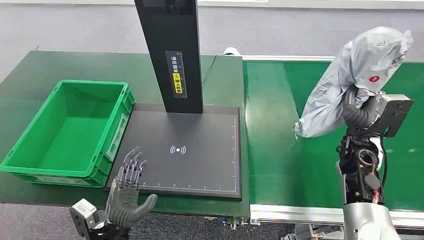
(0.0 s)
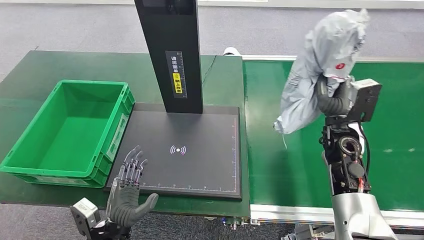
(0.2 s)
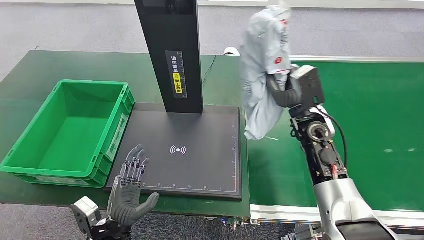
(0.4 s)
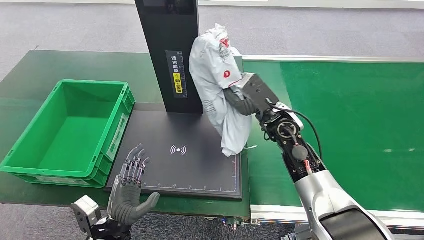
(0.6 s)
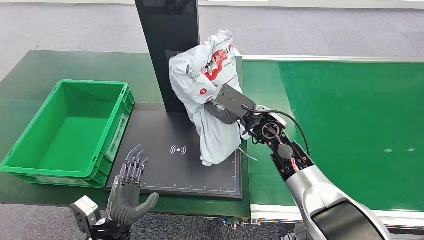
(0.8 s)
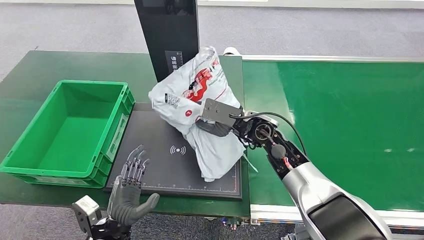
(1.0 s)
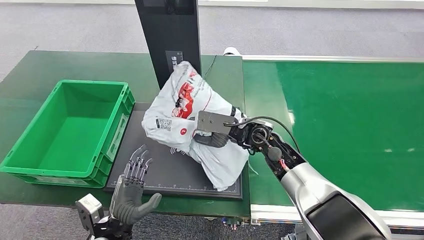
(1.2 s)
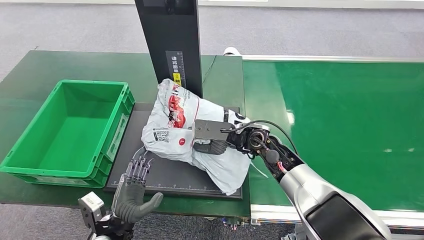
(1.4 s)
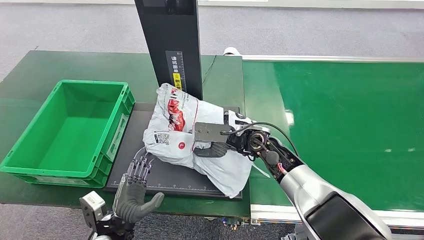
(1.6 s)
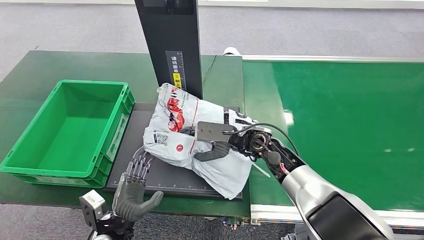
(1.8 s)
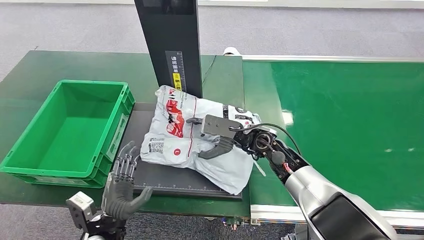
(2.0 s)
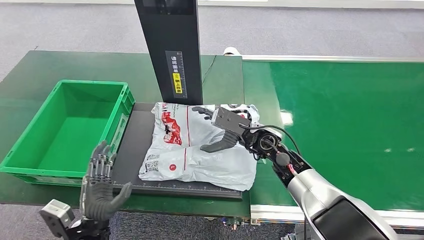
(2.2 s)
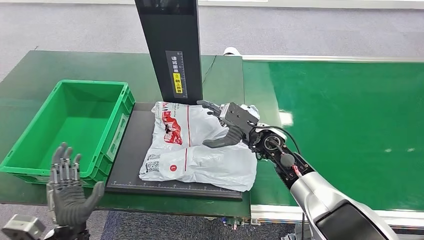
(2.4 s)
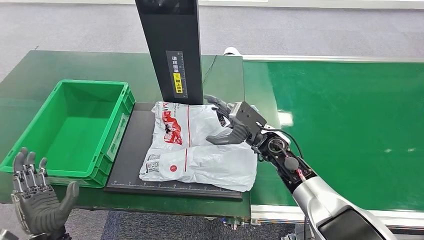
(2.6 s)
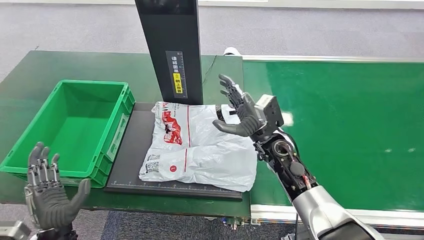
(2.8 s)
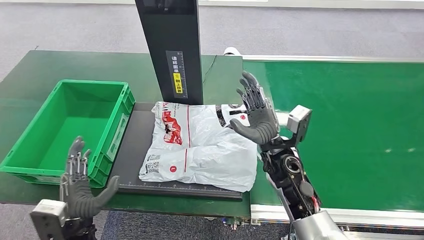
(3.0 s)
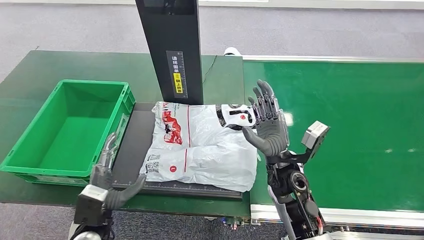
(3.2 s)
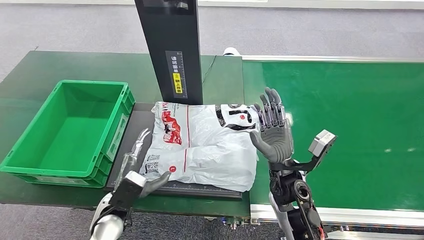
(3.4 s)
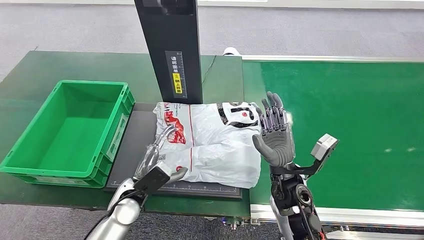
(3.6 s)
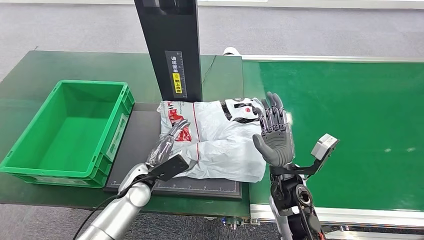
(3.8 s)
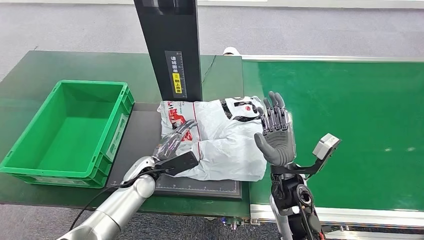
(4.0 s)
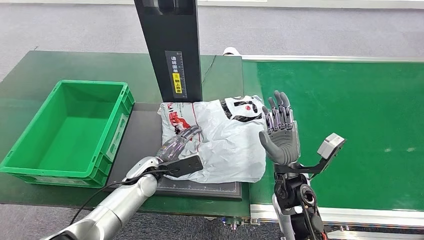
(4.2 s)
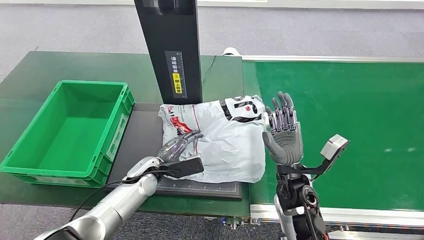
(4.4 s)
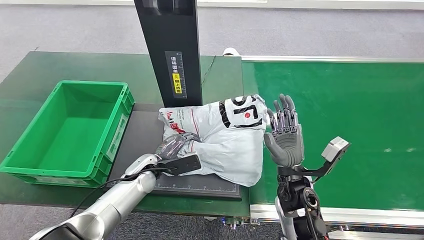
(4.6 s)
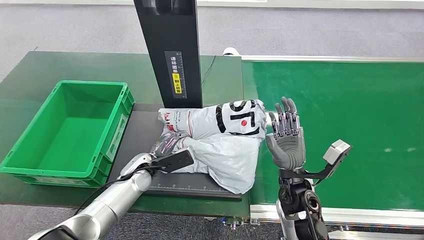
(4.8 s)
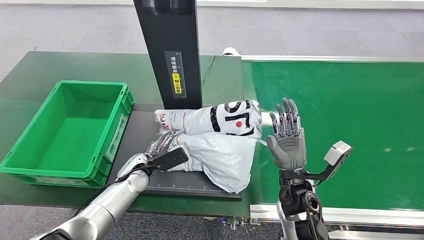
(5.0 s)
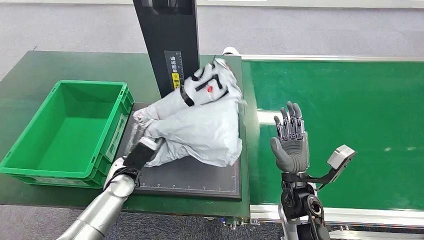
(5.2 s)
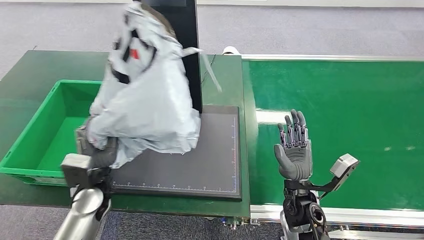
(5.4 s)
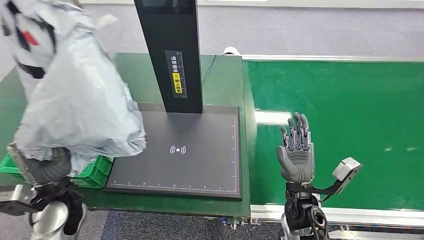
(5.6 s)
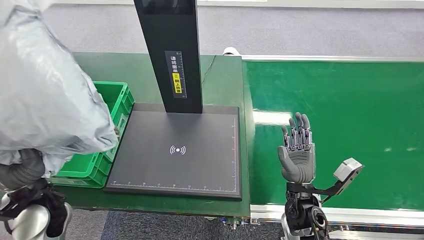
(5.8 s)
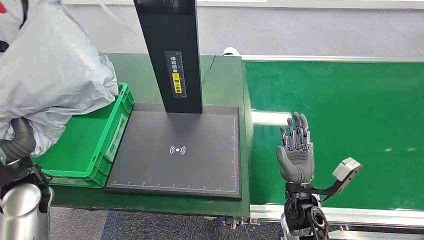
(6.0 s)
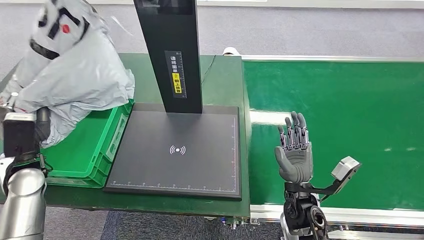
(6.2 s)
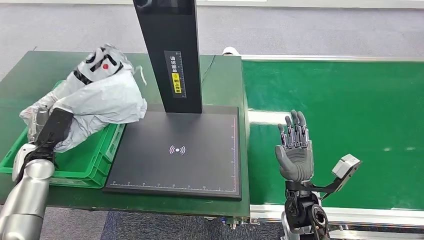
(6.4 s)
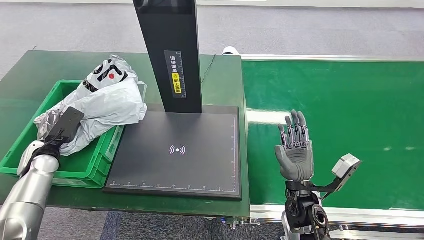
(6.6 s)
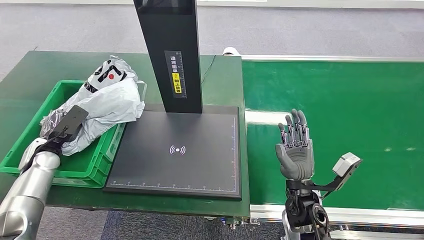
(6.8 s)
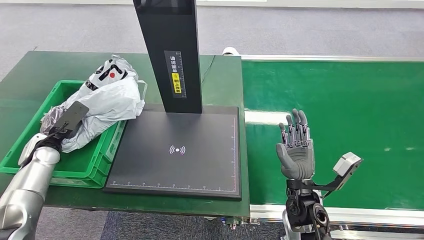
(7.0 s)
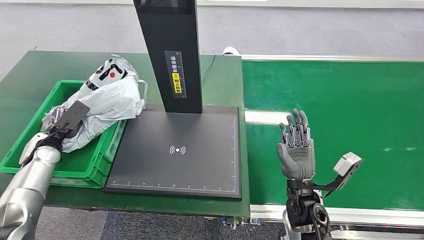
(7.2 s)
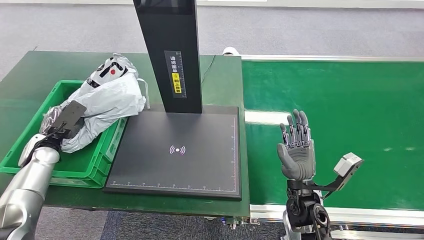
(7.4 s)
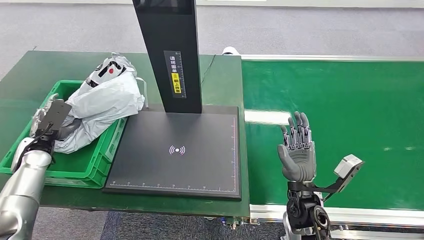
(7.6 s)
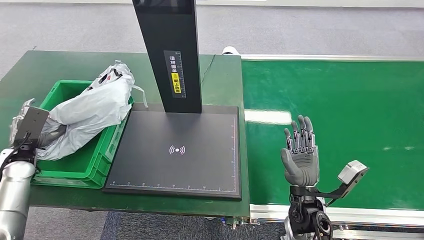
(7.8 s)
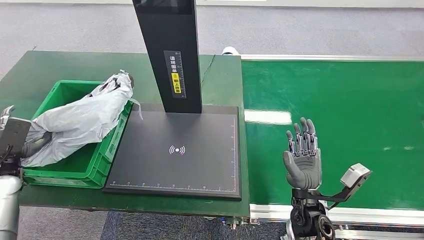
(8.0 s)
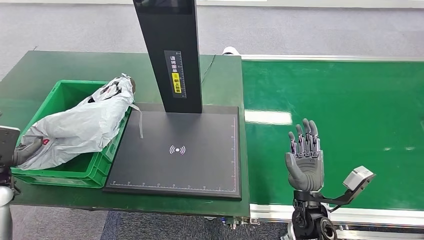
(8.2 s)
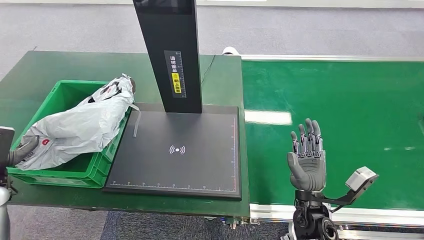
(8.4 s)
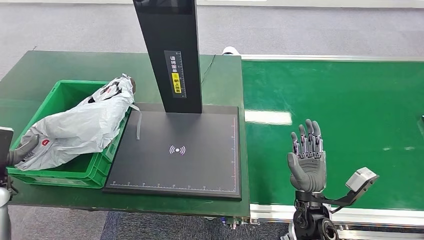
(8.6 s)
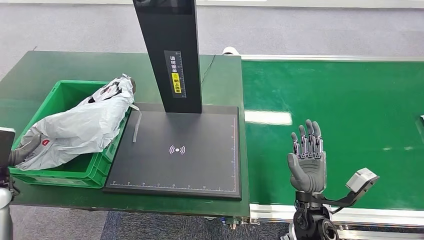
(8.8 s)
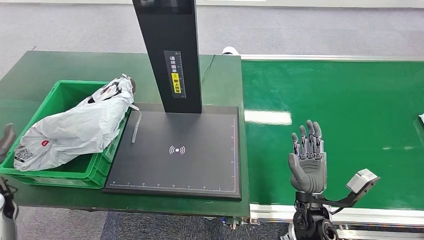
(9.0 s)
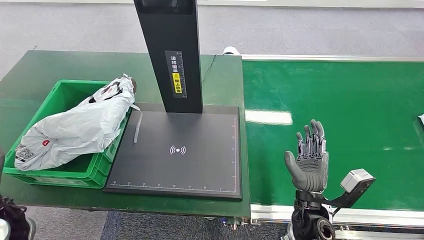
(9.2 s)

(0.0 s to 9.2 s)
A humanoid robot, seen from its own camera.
Step, 2.4 s - 2.6 s: Place the package onto the inbound machine.
Step, 5.4 s - 5.6 s: Pick up the package from the inbound machine.
7.6 s - 9.2 s: The left hand heads backward, covering some 15 cm.
